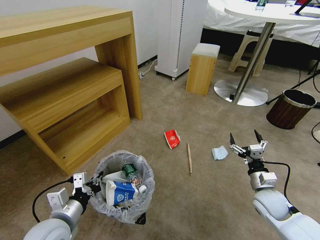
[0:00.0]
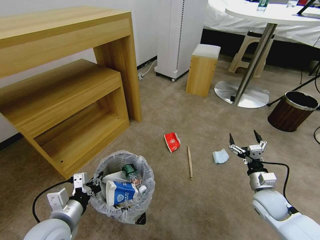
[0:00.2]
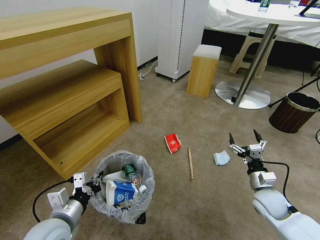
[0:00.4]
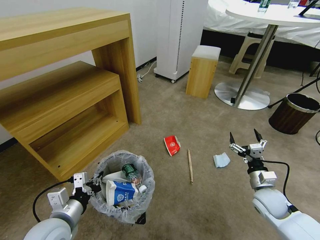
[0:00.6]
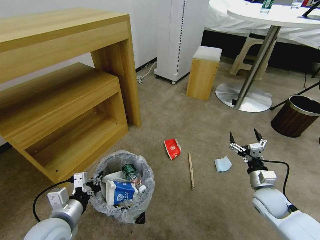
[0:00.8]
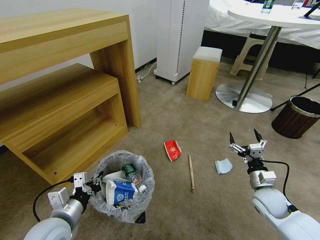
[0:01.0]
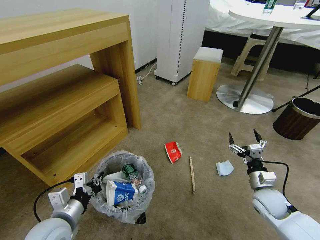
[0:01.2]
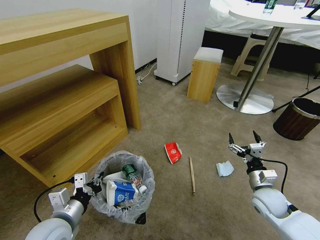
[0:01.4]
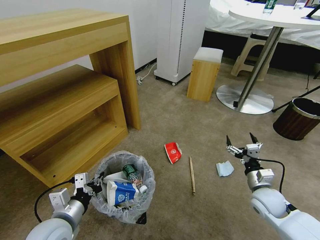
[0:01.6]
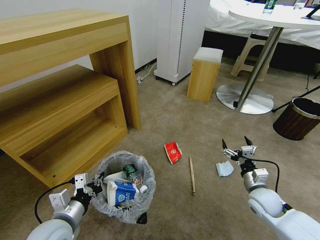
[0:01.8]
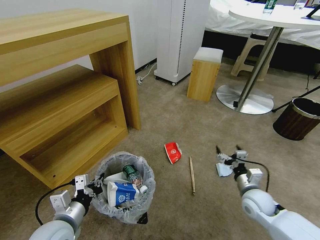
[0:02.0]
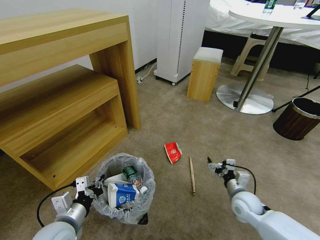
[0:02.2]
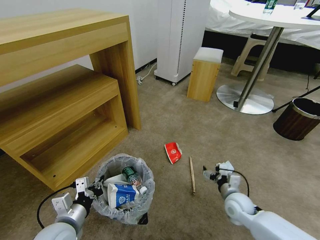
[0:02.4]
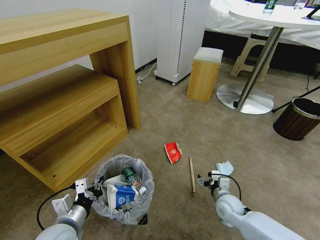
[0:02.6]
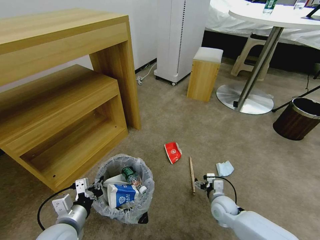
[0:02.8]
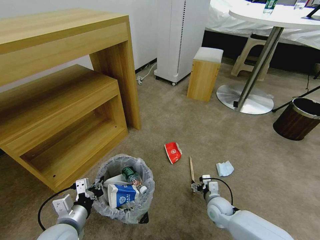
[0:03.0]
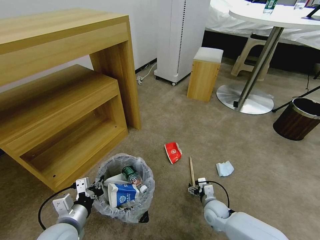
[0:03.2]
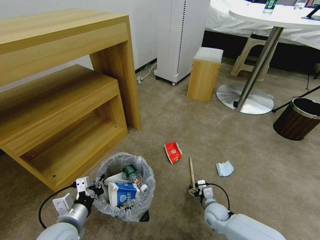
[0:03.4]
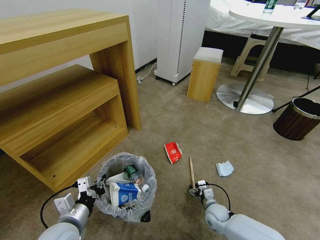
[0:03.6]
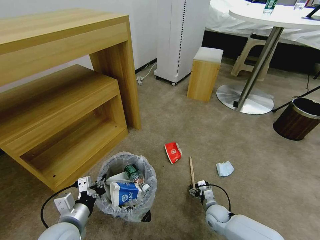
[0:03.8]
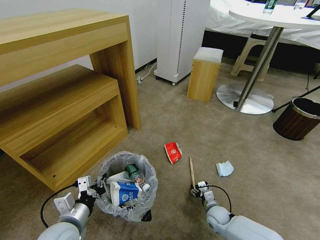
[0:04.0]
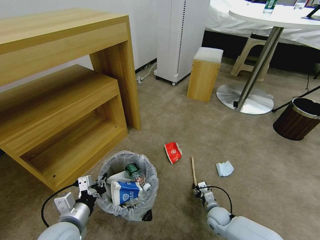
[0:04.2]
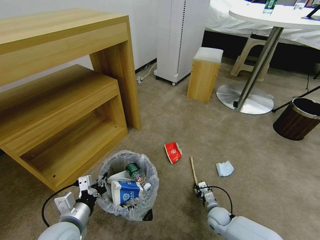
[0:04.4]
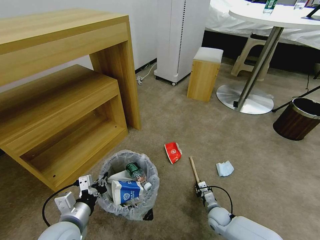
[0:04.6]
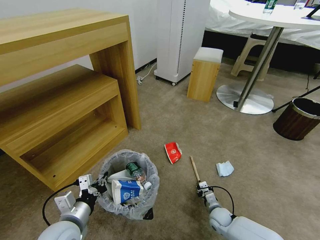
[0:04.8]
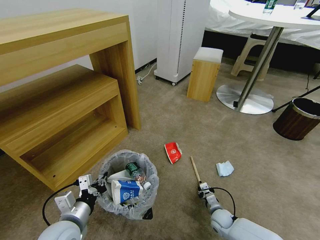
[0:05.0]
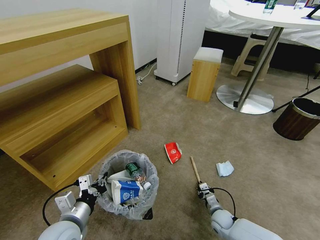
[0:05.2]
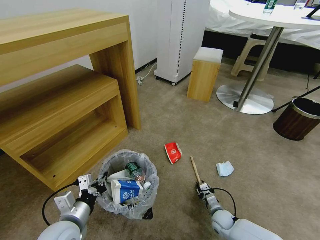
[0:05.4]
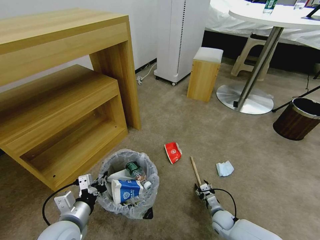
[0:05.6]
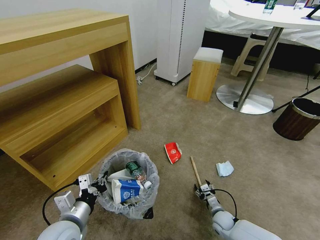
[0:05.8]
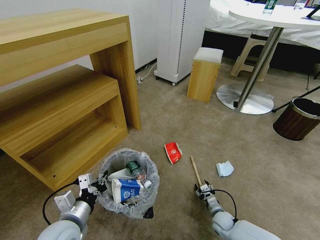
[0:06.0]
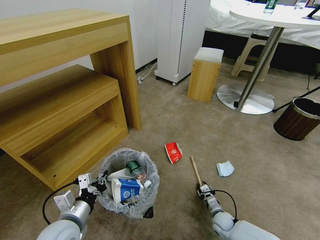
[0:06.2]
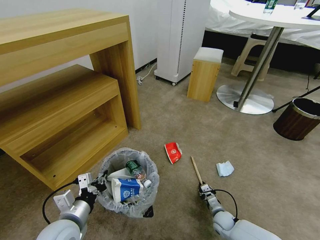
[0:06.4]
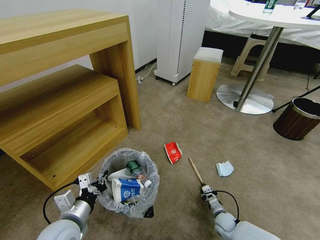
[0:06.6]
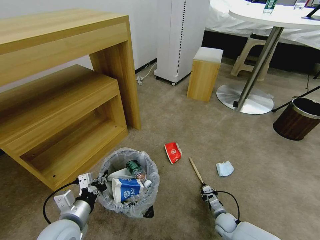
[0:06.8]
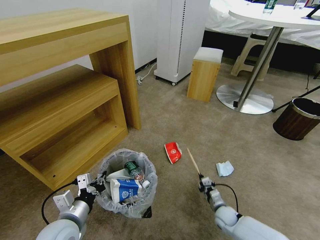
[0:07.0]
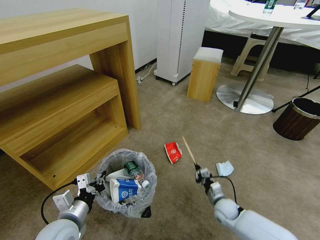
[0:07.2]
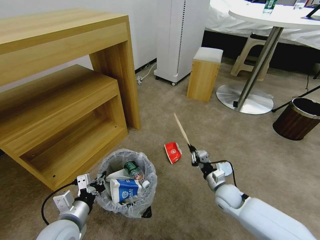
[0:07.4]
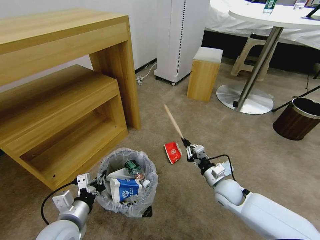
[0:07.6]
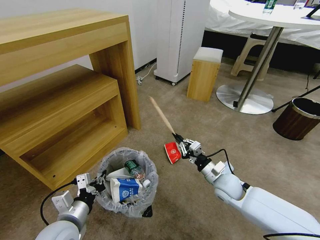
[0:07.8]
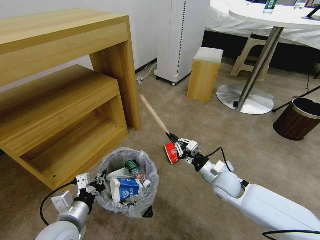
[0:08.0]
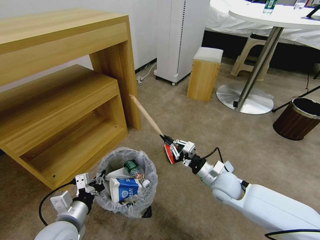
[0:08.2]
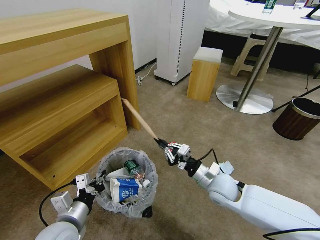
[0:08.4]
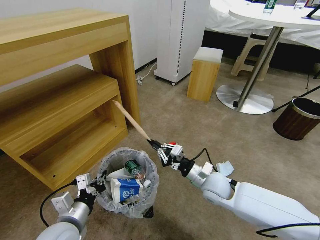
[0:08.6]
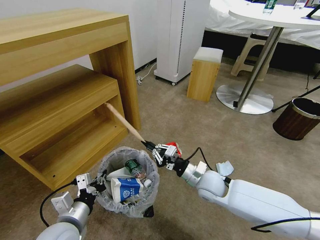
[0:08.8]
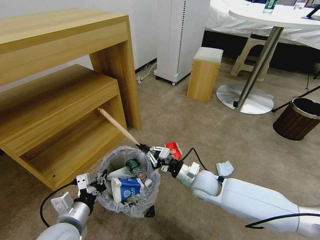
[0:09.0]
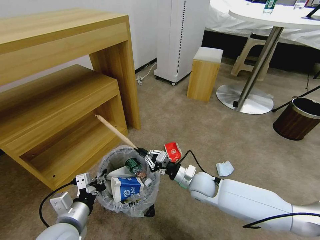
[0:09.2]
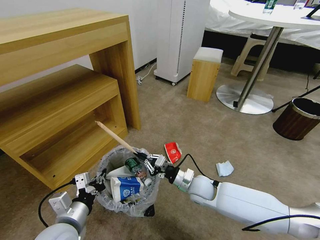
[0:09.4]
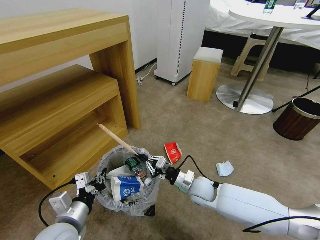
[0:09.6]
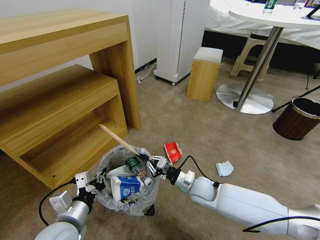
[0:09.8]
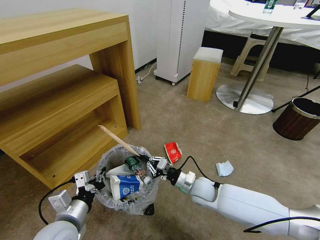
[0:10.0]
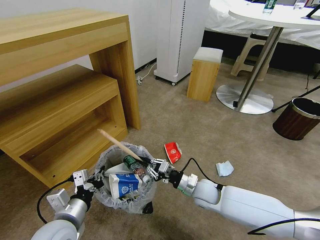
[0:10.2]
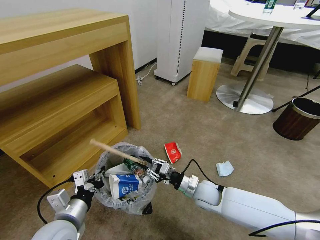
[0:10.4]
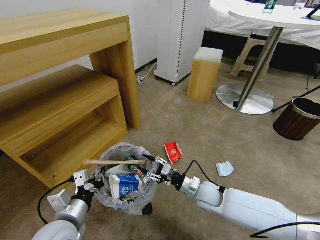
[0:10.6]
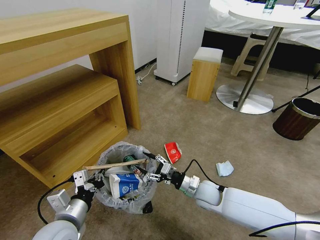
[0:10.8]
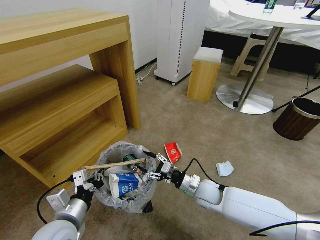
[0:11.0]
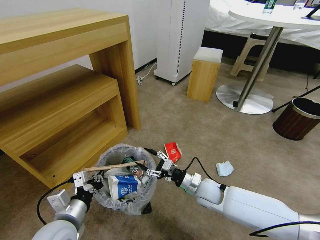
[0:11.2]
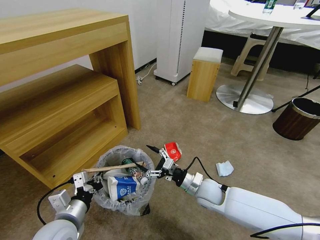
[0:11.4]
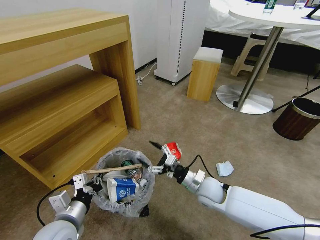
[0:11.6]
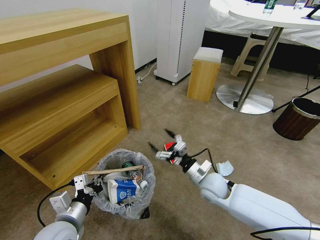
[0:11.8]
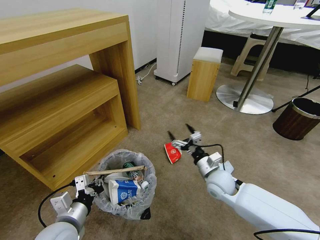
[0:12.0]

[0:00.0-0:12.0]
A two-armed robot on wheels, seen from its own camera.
Task of the whole recording: Pick up the trash bin and place the garbage on the floor into it.
0:01.6 to 0:03.0: The right gripper heads downward and to the left, covering some 20 cm.
0:03.0 to 0:04.4: The right gripper moves downward, roughly 5 cm, and closes its fingers.
0:04.4 to 0:06.0: The right gripper closes, then opens again.
0:06.0 to 0:07.6: The right gripper is displaced upward by some 20 cm, and closes up.
0:07.6 to 0:09.0: The right gripper moves to the left, approximately 10 cm.
0:09.0 to 0:10.4: The right gripper travels downward by about 5 cm.
0:10.4 to 0:12.0: The right gripper moves upward, approximately 5 cm, and opens its fingers.

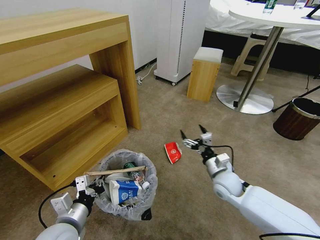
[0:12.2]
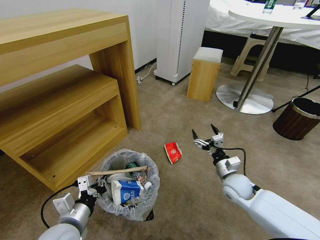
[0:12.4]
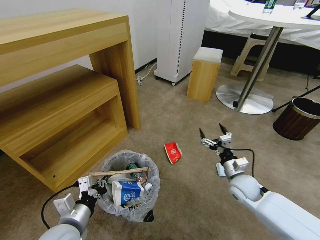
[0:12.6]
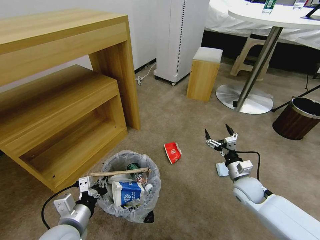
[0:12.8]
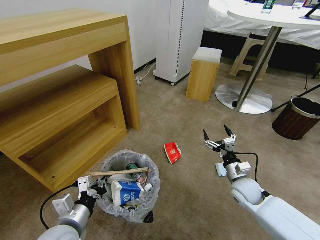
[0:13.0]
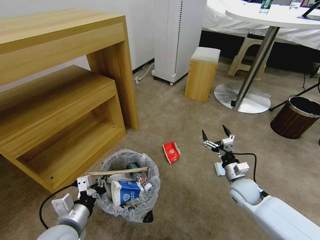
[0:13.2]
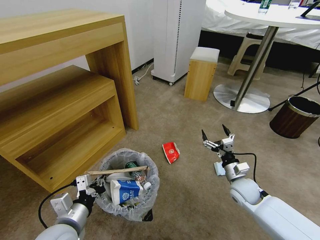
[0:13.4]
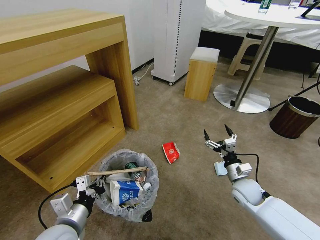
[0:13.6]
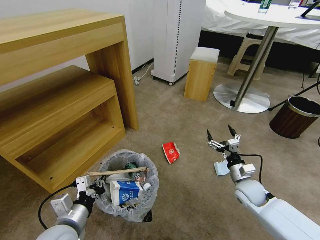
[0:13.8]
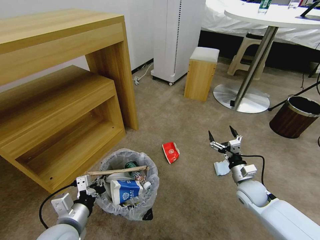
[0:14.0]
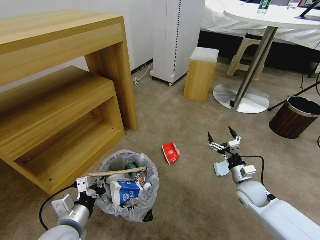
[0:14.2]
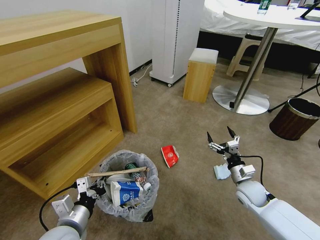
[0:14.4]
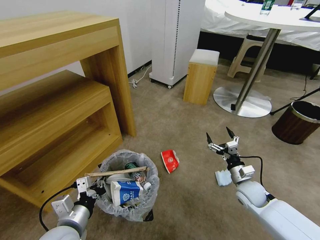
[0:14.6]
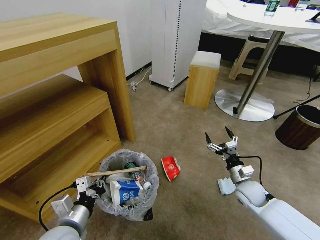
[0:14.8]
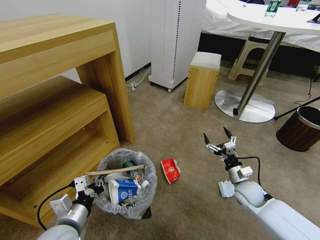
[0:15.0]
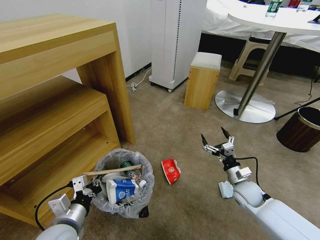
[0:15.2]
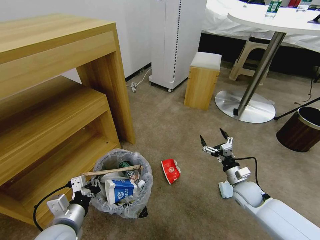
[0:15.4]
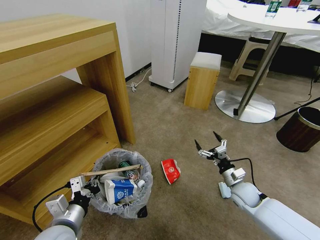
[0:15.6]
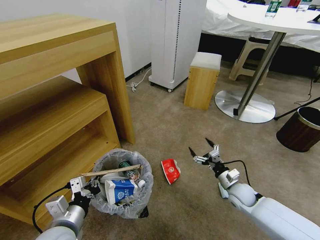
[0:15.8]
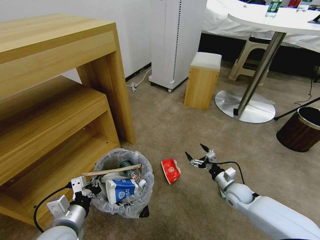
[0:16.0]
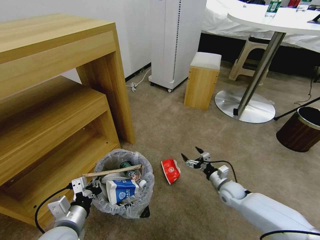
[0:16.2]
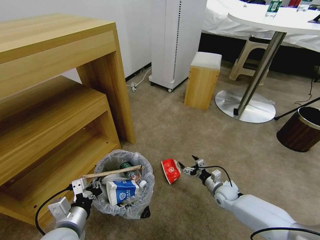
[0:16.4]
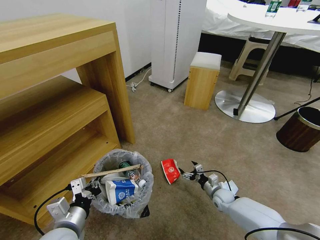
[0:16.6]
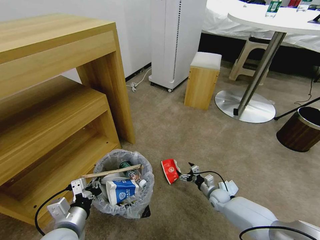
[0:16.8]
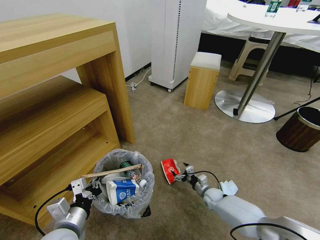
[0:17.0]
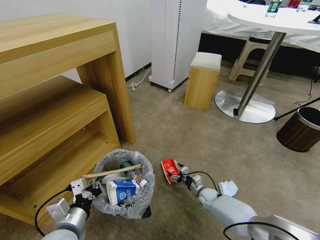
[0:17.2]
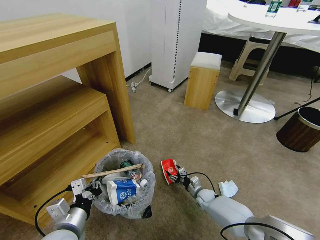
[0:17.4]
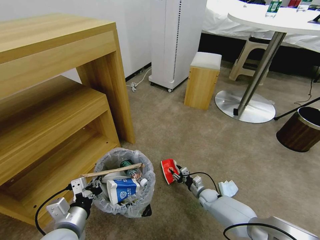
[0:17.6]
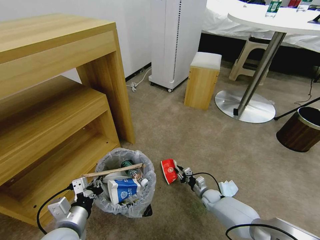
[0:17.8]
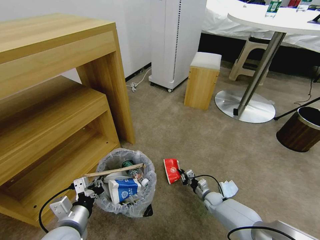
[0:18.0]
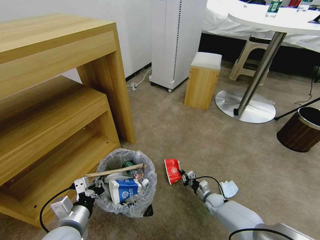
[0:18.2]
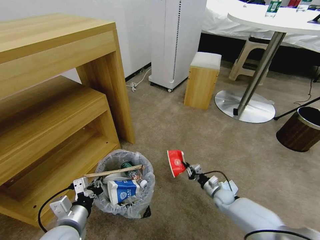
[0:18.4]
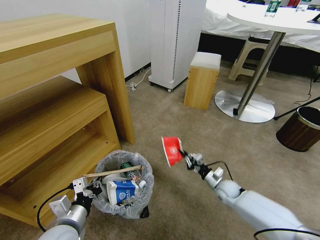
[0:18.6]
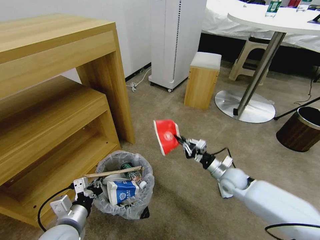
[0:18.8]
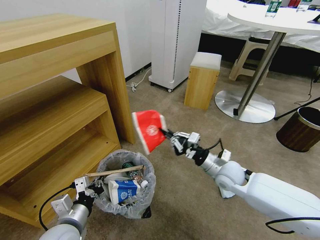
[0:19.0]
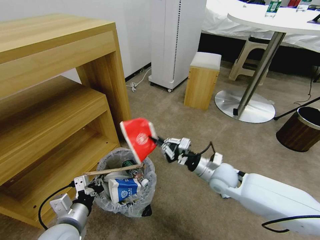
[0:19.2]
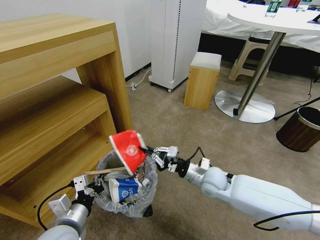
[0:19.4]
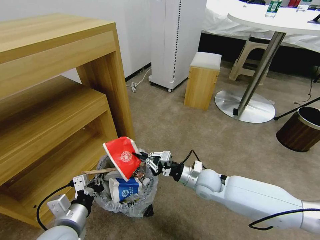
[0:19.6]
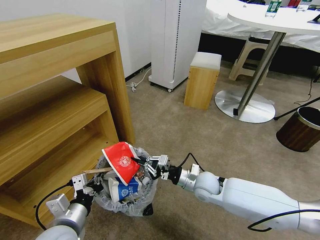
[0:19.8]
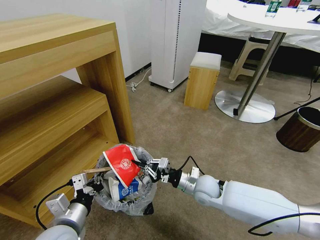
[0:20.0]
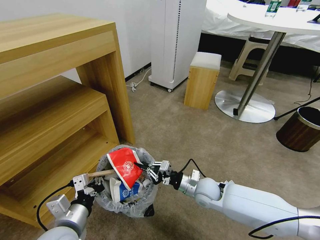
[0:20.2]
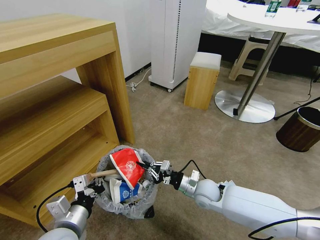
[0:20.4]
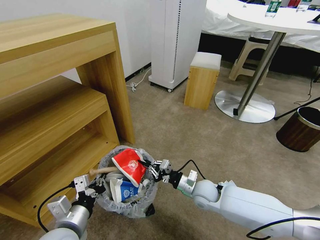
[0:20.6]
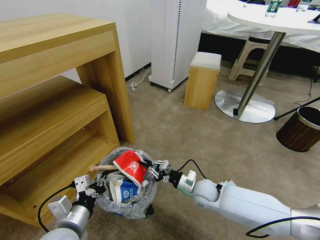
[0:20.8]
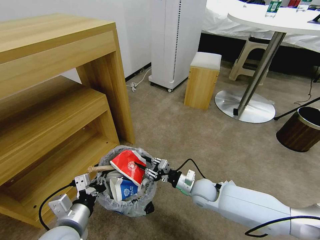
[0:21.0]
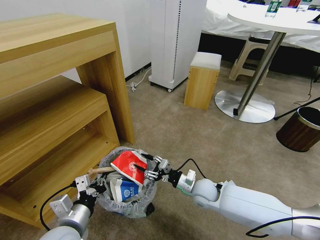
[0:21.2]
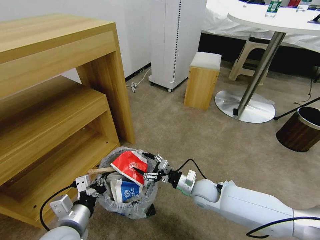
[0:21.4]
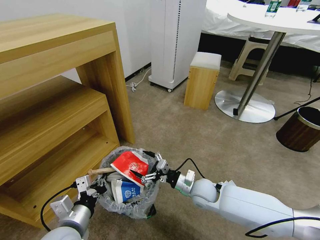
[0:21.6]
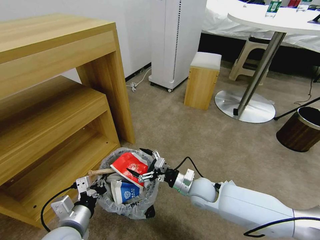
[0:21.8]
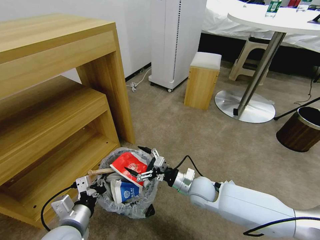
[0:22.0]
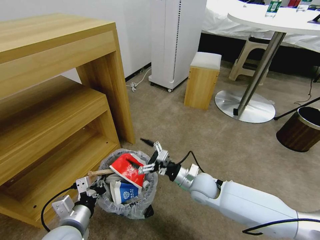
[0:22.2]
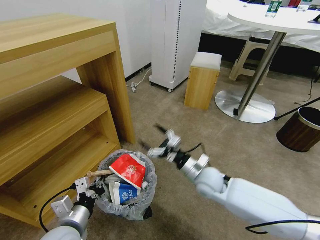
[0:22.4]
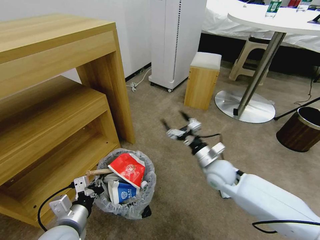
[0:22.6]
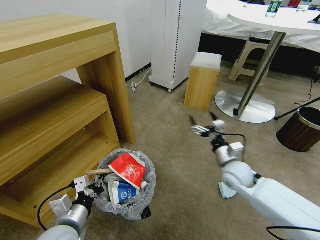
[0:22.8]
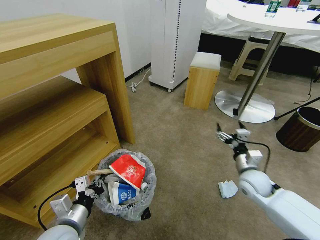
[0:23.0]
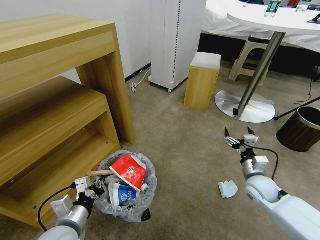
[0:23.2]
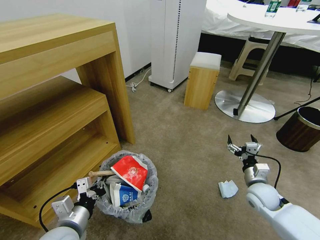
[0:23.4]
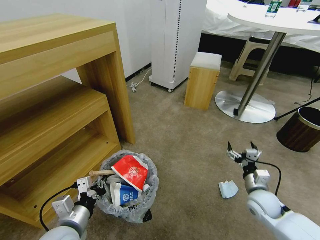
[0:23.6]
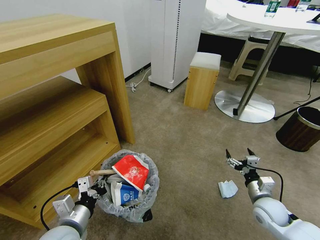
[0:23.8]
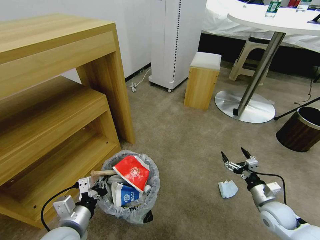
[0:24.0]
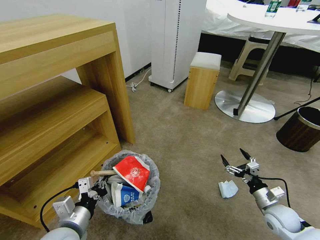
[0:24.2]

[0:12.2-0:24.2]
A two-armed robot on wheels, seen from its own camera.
Task of the whole recording: Pick up the trash bin and place the garbage on the floor into it.
0:12.2 to 0:13.8: The right gripper travels to the right by about 10 cm.
0:15.2 to 0:16.6: The right gripper is displaced downward by roughly 15 cm.
0:16.6 to 0:18.2: The right gripper moves downward, about 5 cm, and closes its fingers.
0:18.2 to 0:19.8: The right gripper goes approximately 25 cm upward and to the left.
0:19.8 to 0:21.2: The right gripper opens up.
0:21.2 to 0:22.6: The right gripper moves upward, about 10 cm, and opens its fingers.
0:22.6 to 0:24.2: The right gripper is displaced to the right, backward and downward by roughly 25 cm.
